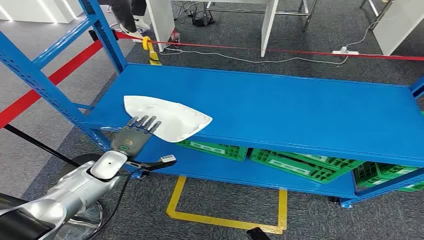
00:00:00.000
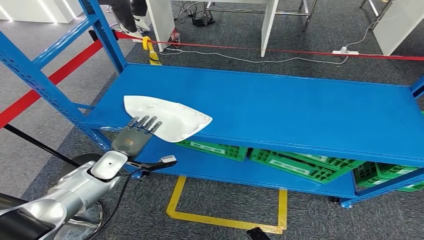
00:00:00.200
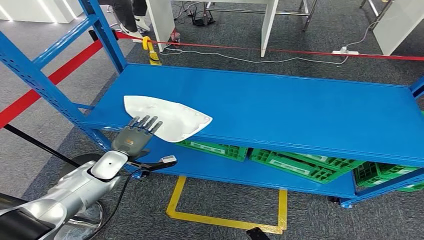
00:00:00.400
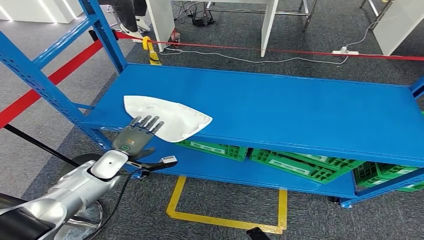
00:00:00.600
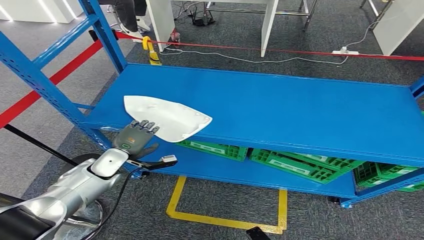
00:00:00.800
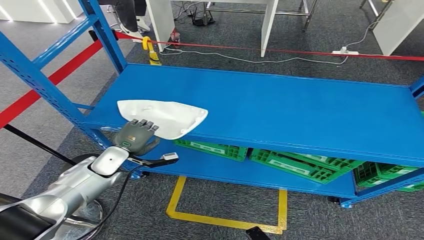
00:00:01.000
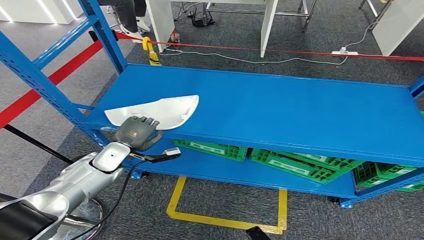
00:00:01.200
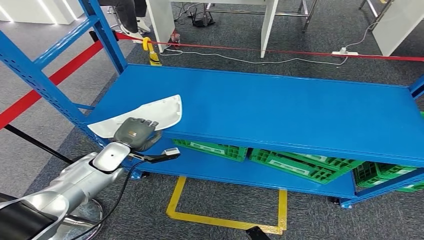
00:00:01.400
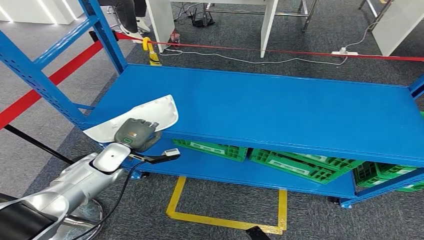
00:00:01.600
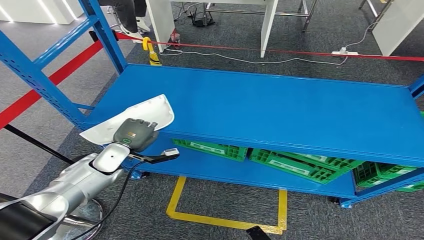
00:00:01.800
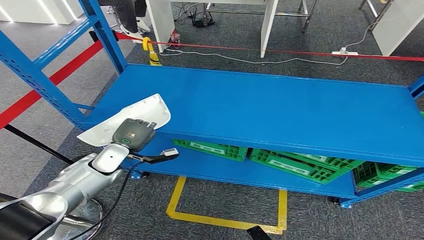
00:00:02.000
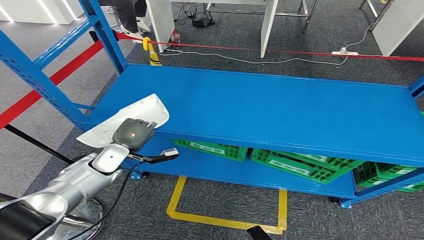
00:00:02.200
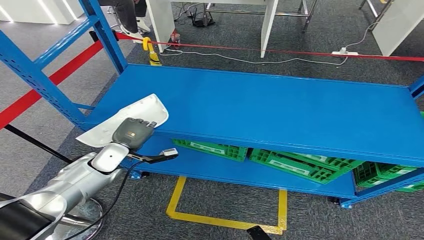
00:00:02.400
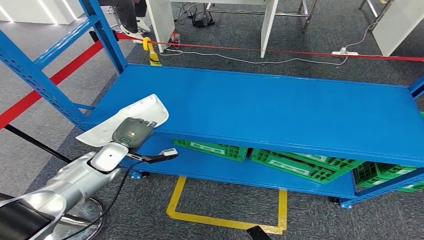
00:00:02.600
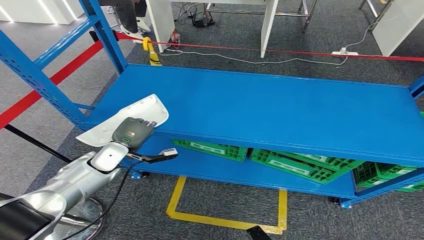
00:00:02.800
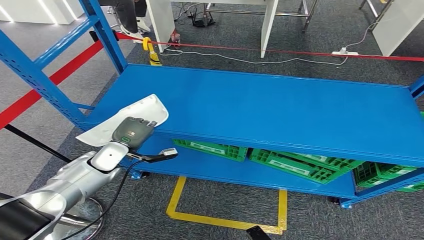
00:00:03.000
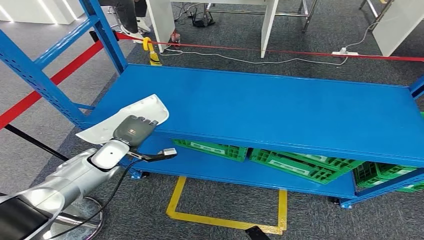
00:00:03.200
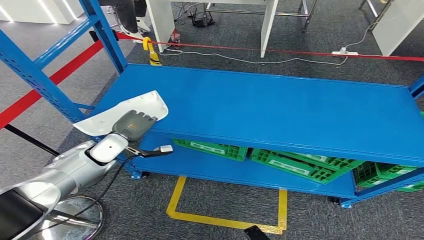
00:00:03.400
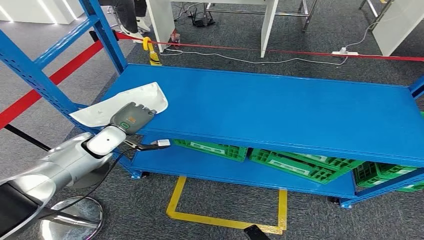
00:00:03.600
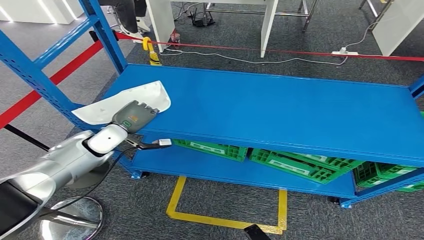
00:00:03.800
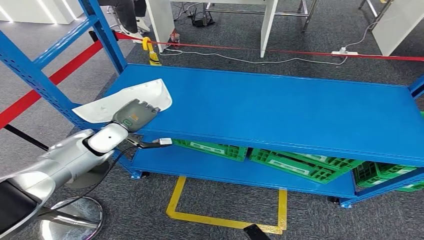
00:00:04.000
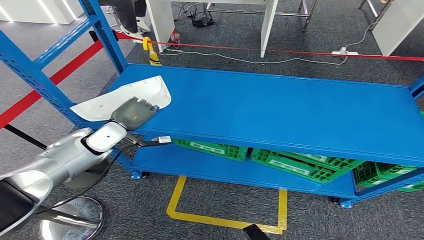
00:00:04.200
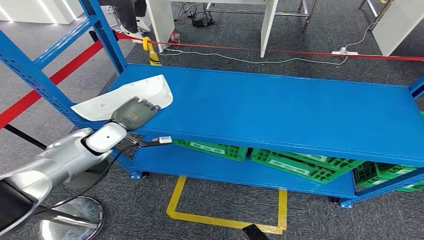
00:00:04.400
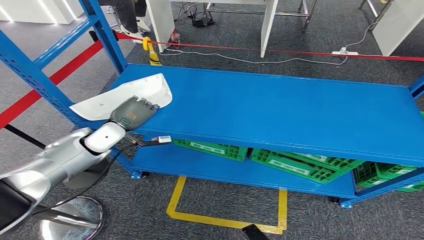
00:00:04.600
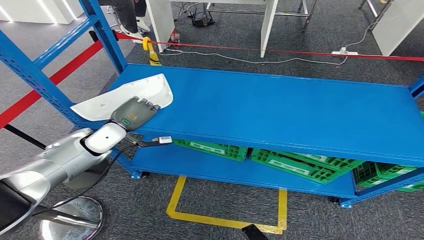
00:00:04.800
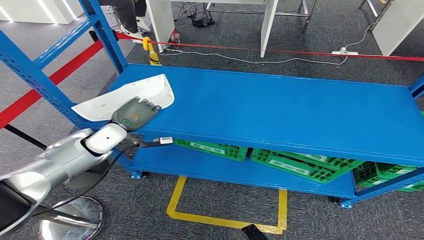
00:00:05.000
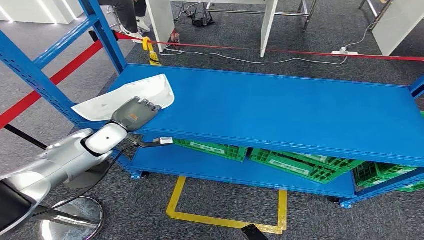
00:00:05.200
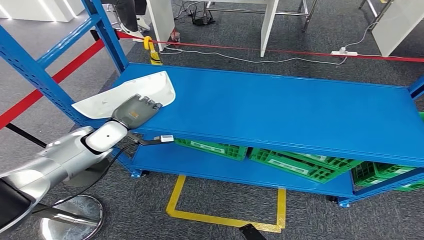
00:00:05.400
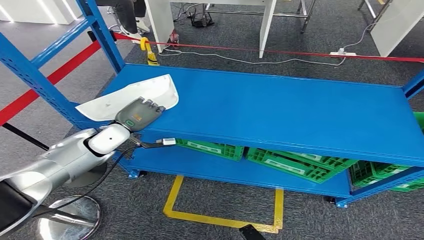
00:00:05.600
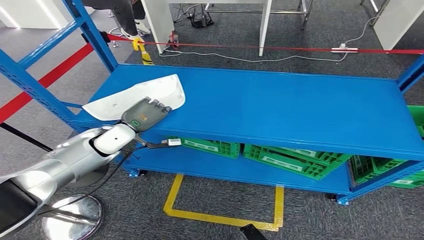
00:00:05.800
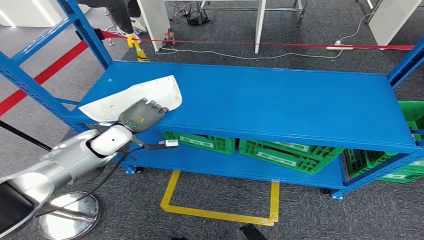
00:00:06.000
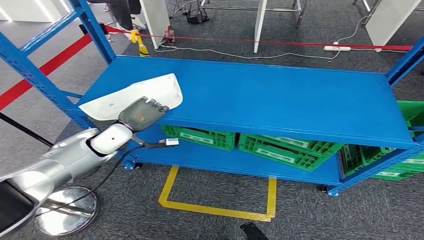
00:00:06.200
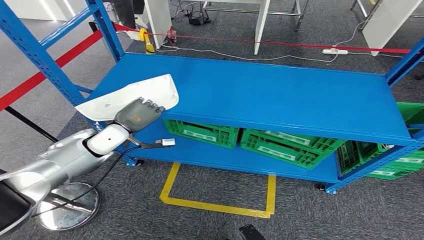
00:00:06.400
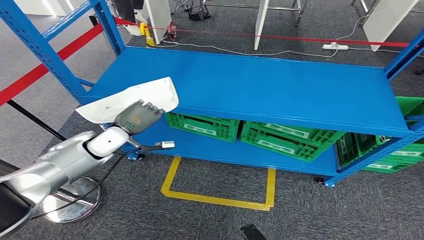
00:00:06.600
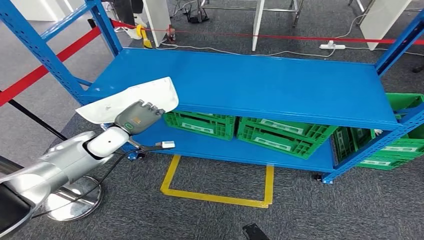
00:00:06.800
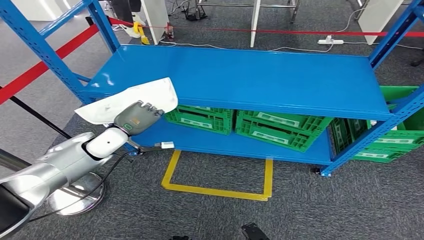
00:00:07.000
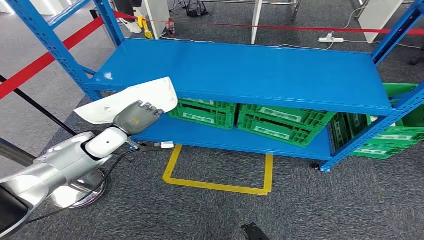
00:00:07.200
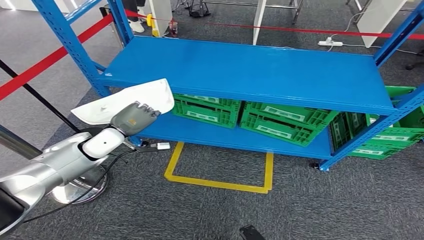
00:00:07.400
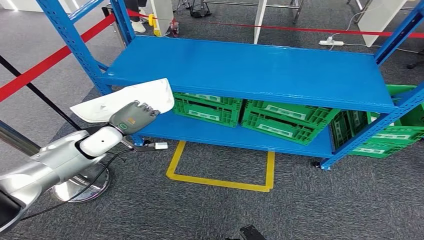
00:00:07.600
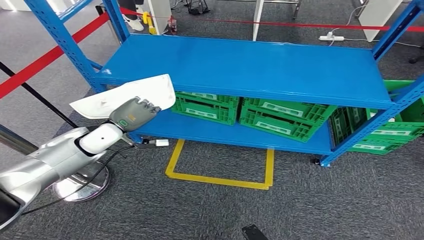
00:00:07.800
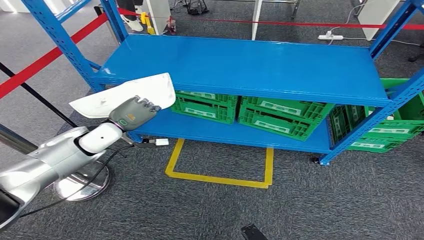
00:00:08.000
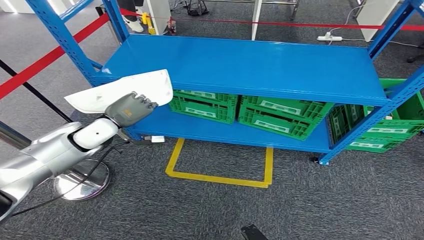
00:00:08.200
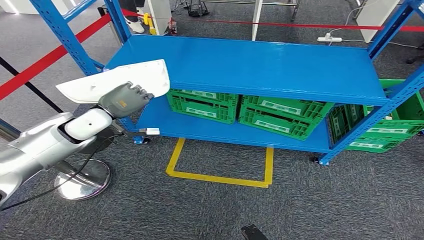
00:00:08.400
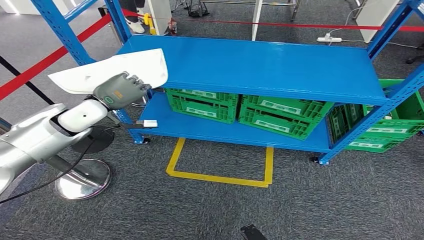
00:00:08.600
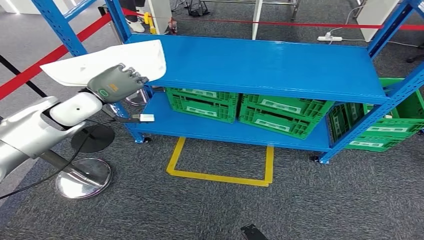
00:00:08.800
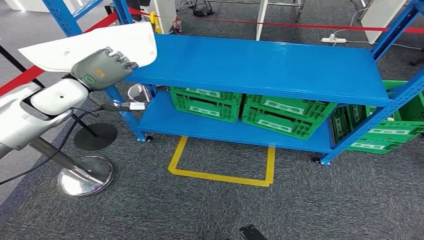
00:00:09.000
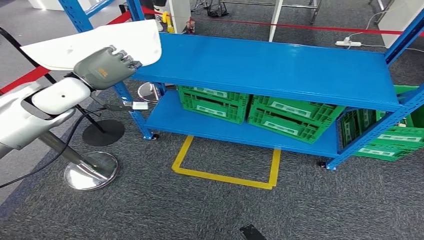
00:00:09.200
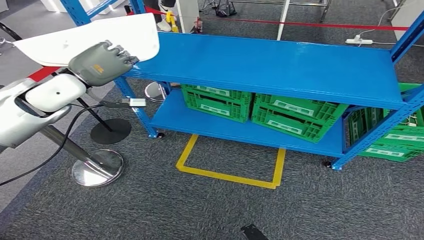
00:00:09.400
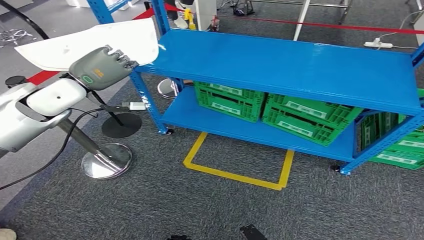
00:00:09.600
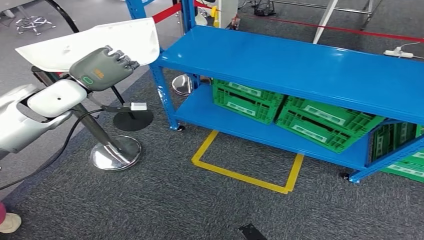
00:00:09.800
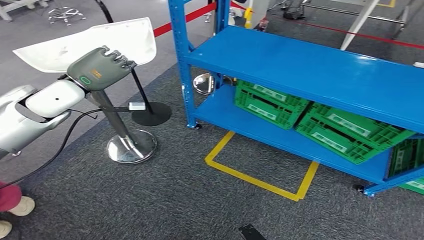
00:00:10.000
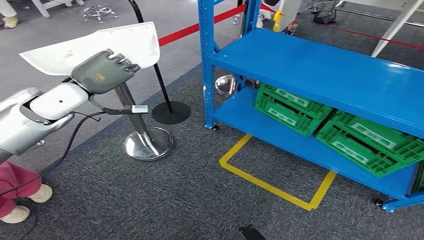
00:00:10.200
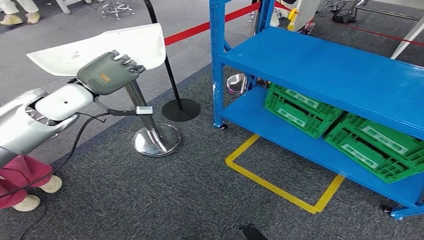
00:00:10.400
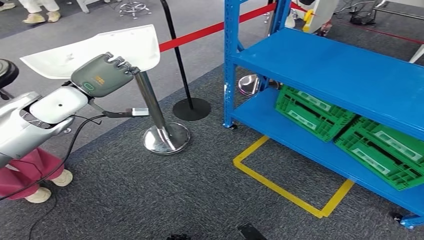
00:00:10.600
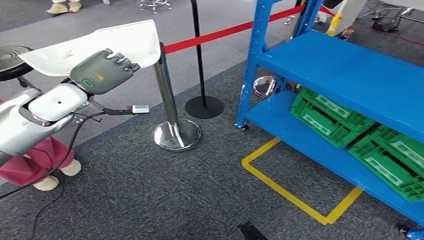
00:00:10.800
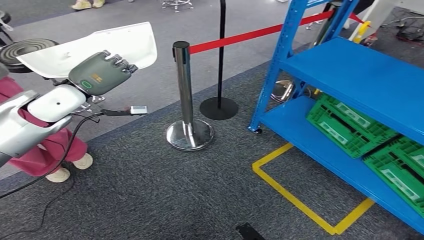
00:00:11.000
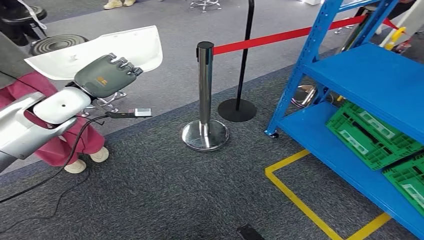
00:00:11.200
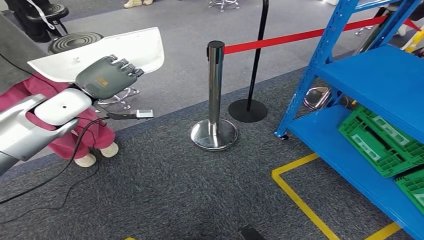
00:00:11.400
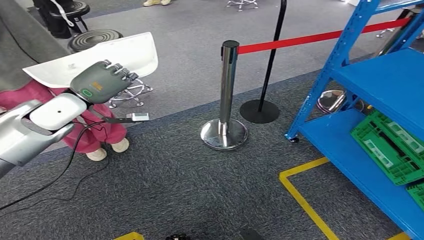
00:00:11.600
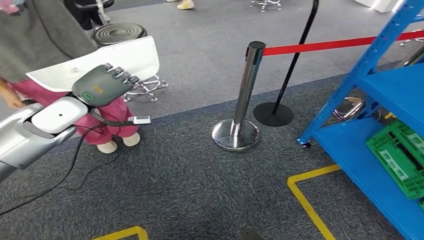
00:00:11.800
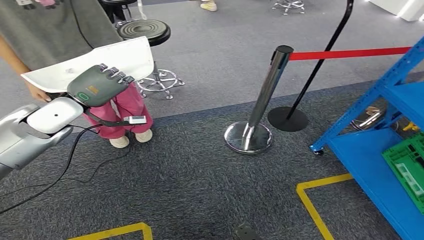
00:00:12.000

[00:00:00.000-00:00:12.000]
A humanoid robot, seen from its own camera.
Step, 00:00:00.000 to 00:00:05.600: Take small components from the rack.
00:00:01.600 to 00:00:03.000: Neither hand changes place.
00:00:03.000 to 00:00:04.400: The left hand goes some 5 cm upward.

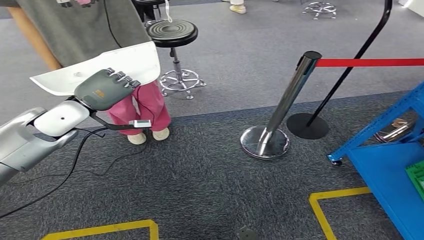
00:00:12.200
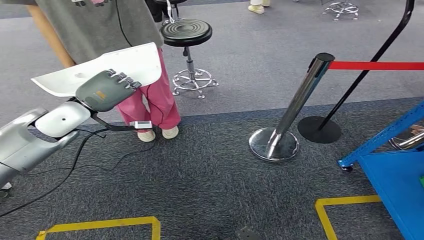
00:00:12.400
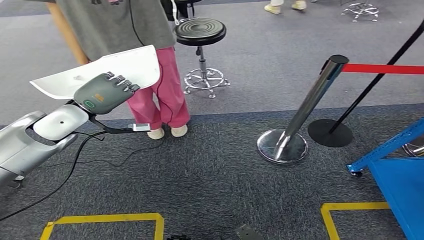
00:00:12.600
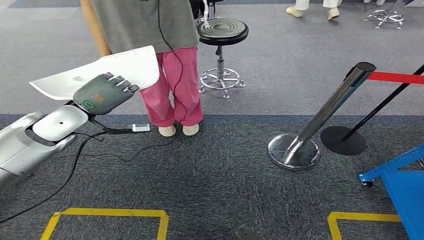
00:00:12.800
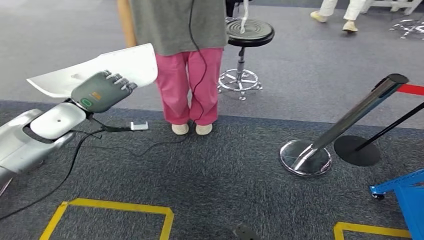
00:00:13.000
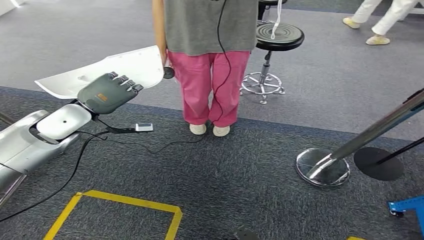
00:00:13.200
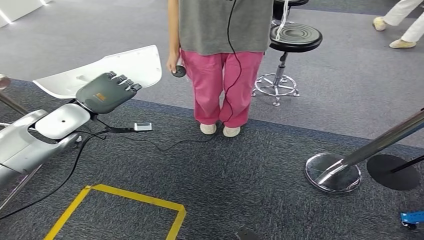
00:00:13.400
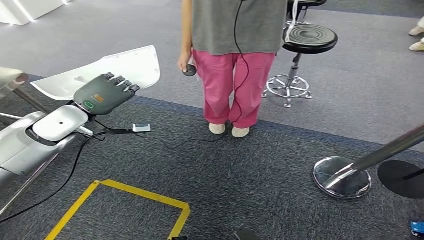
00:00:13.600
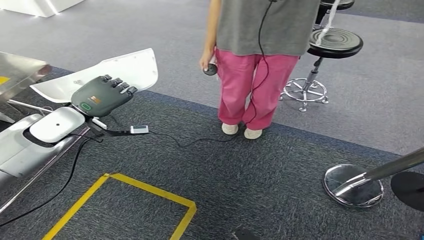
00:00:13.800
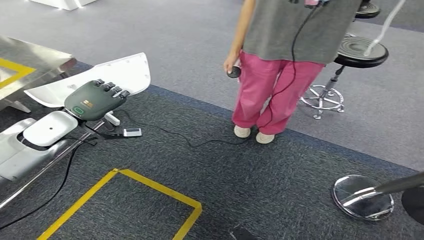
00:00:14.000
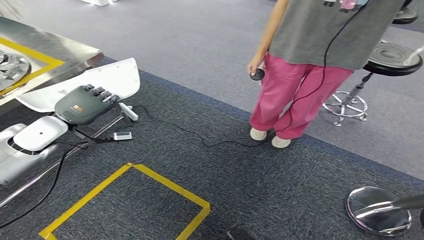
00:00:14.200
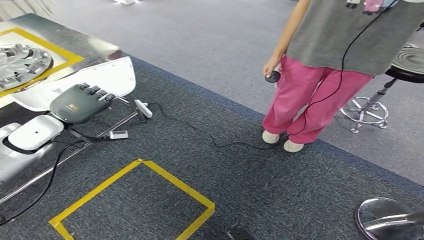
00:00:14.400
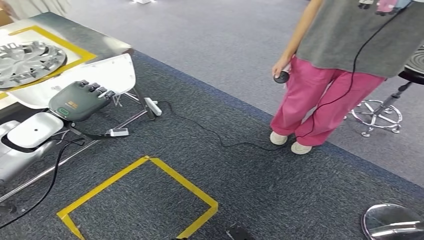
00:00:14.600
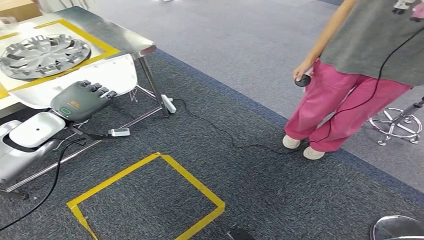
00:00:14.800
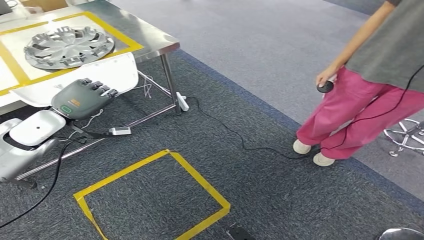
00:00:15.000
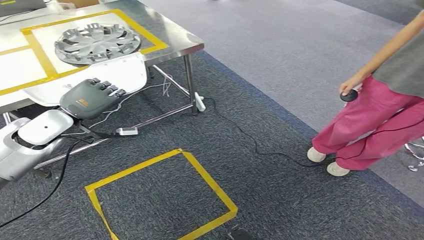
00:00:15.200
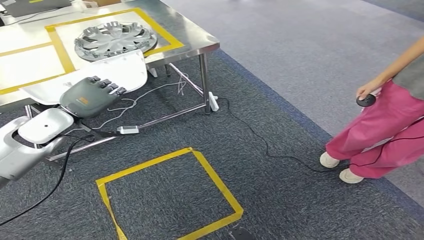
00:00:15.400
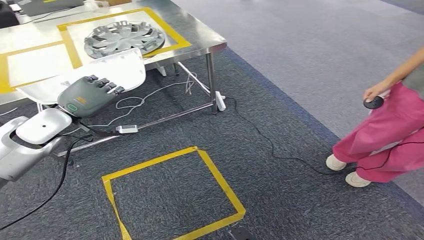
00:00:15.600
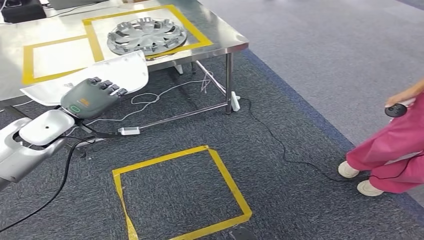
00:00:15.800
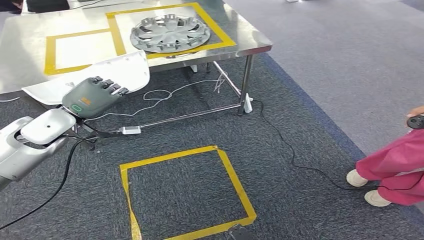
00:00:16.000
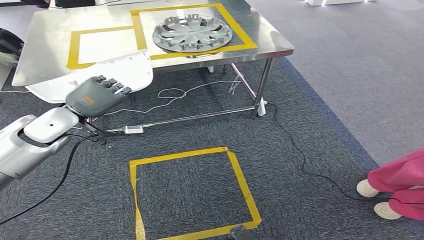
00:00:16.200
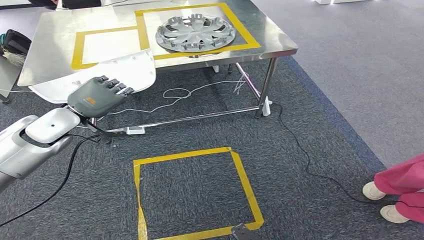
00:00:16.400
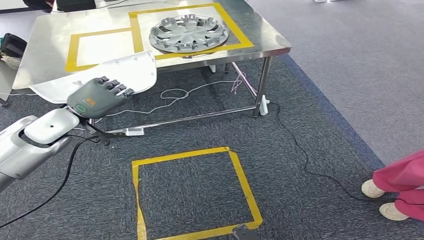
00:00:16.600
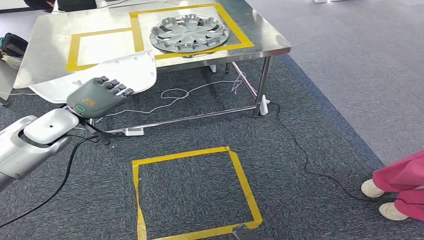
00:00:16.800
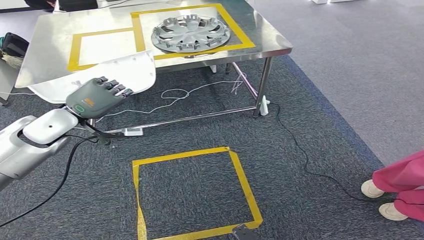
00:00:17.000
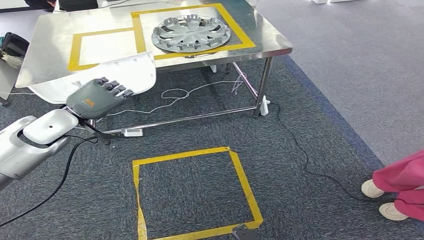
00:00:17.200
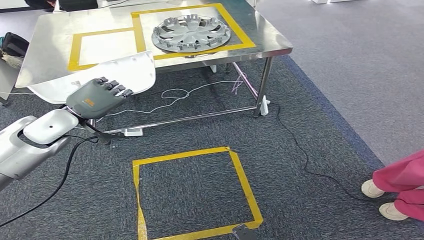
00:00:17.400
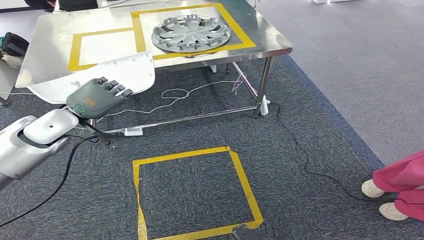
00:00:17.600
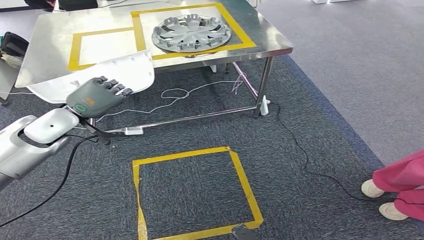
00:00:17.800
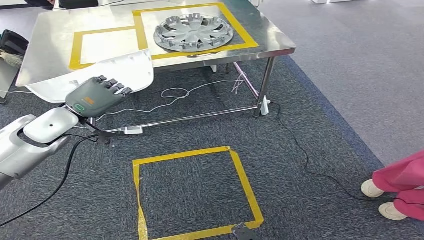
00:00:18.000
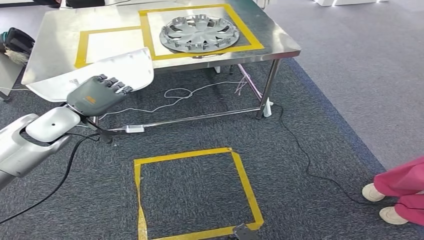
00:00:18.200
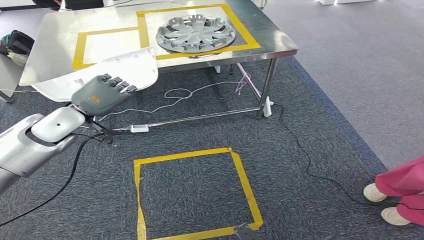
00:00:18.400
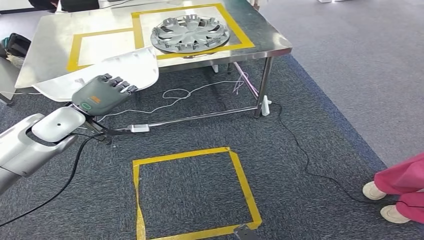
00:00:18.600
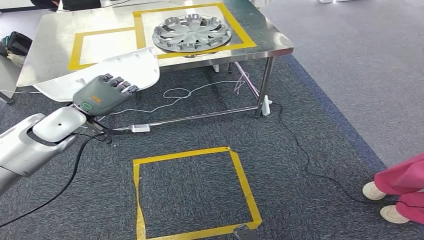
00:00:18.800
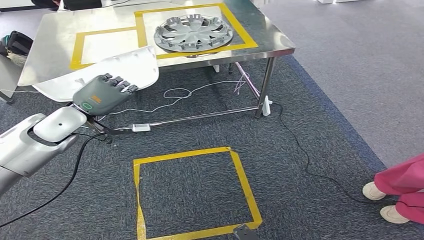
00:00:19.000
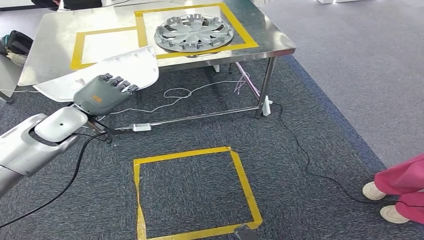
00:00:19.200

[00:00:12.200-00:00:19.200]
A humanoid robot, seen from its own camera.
Step, 00:00:12.200 to 00:00:18.200: Move the small parts to the workbench.
00:00:16.400 to 00:00:19.200: Both hands stay about where they are.
